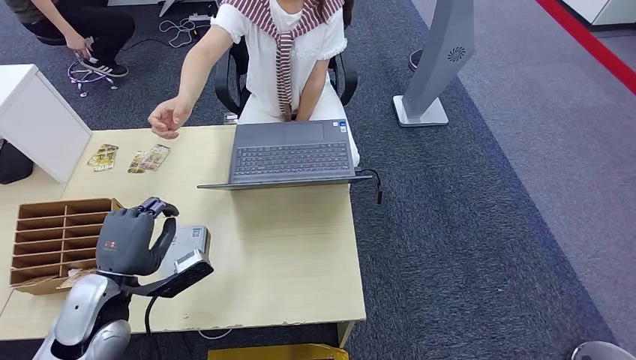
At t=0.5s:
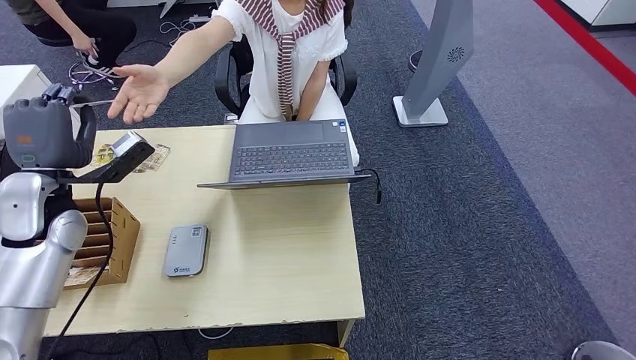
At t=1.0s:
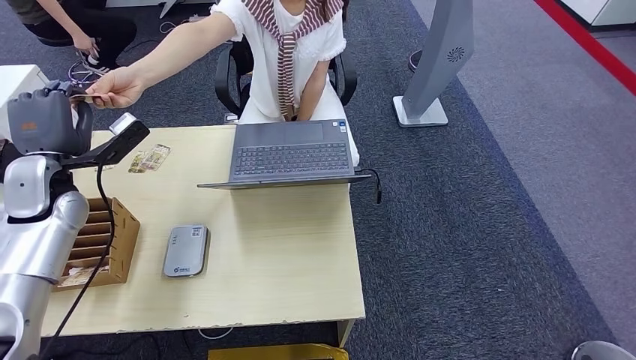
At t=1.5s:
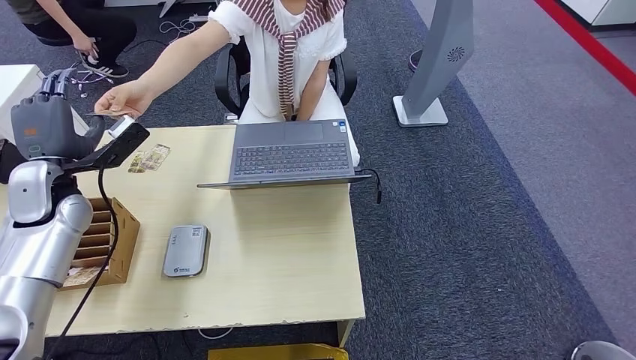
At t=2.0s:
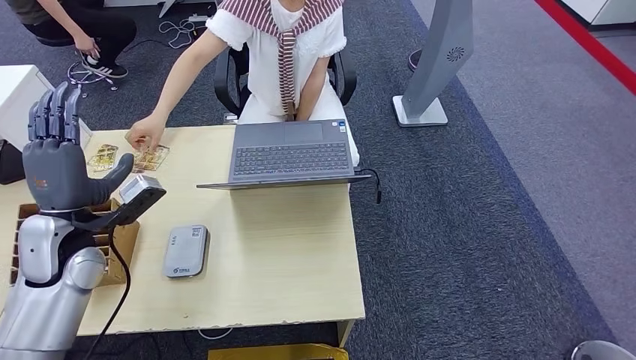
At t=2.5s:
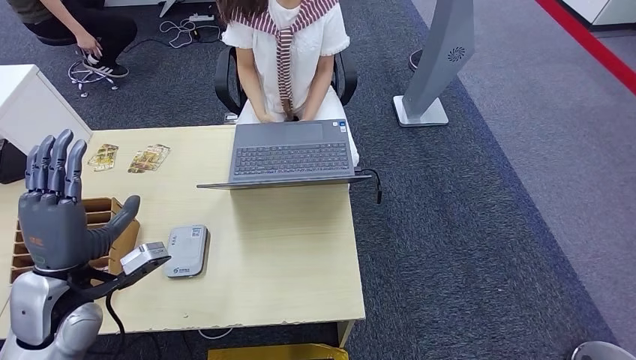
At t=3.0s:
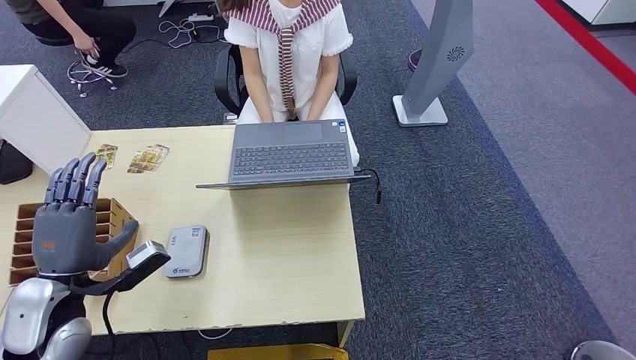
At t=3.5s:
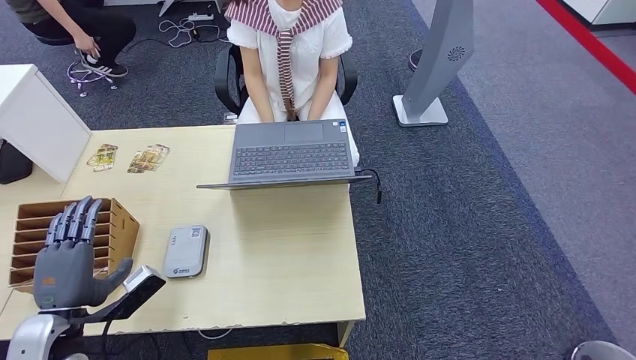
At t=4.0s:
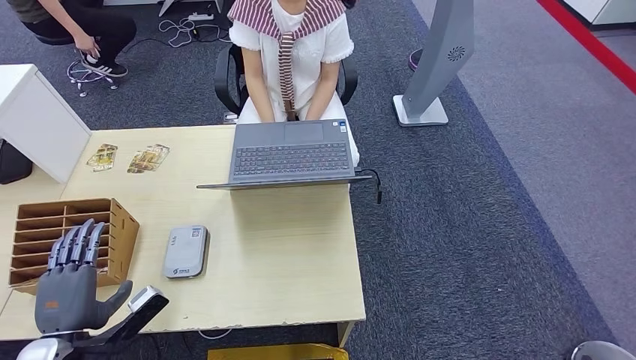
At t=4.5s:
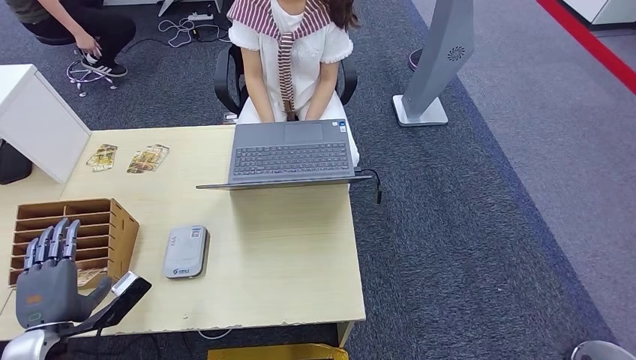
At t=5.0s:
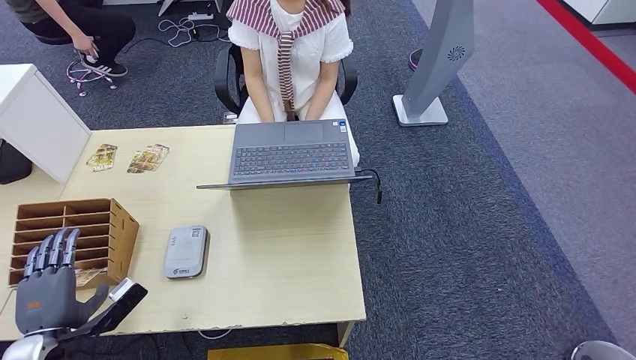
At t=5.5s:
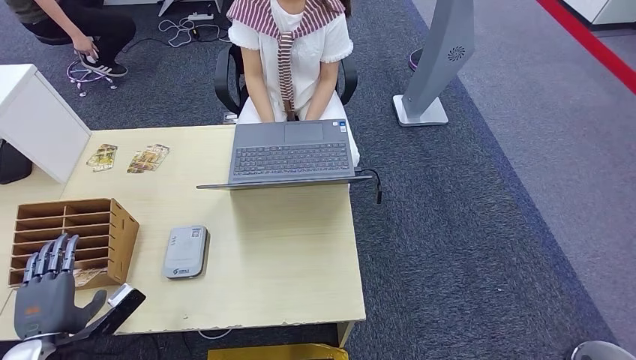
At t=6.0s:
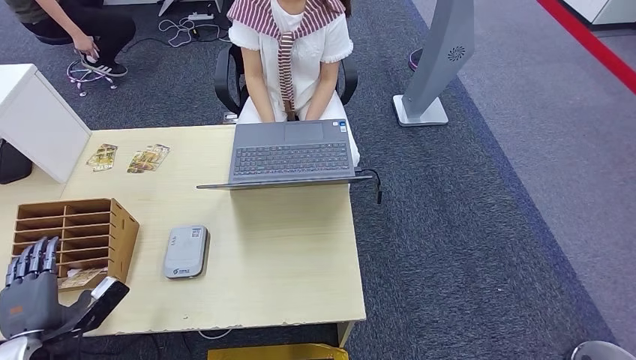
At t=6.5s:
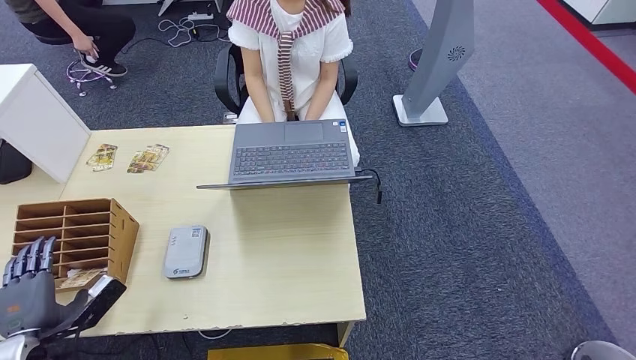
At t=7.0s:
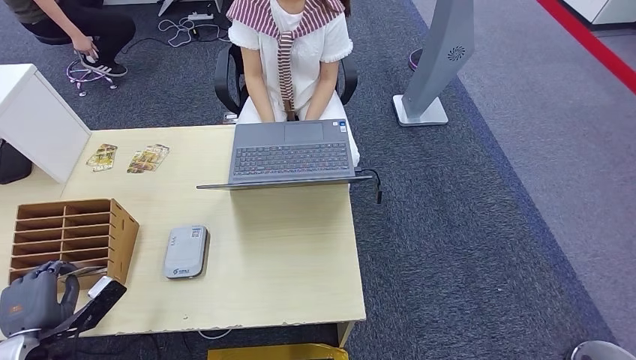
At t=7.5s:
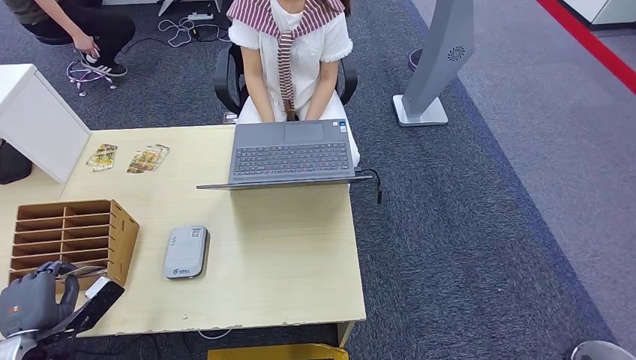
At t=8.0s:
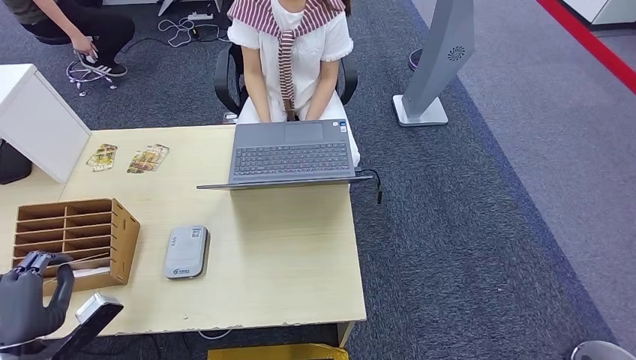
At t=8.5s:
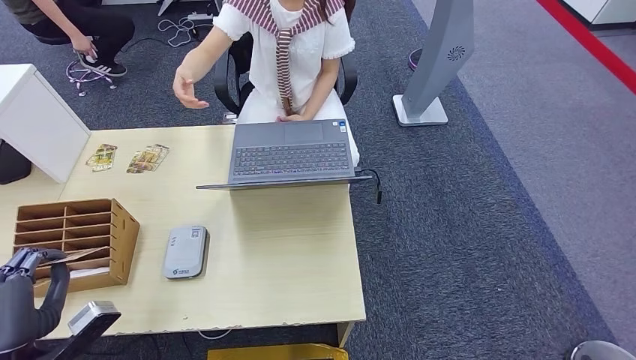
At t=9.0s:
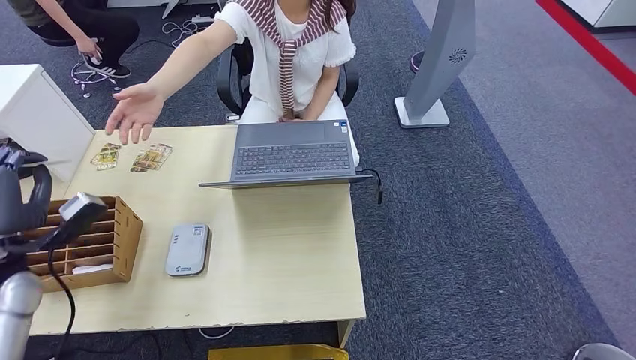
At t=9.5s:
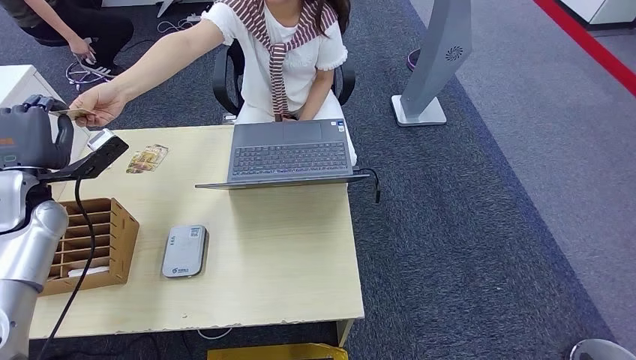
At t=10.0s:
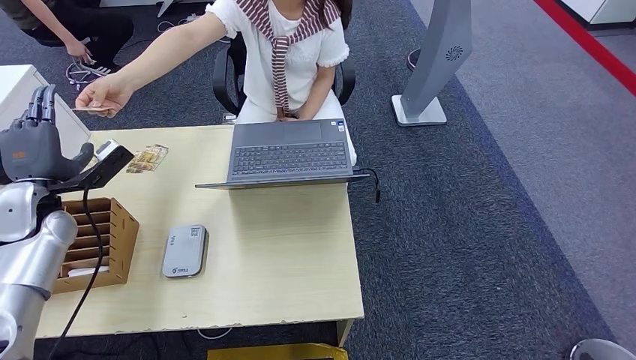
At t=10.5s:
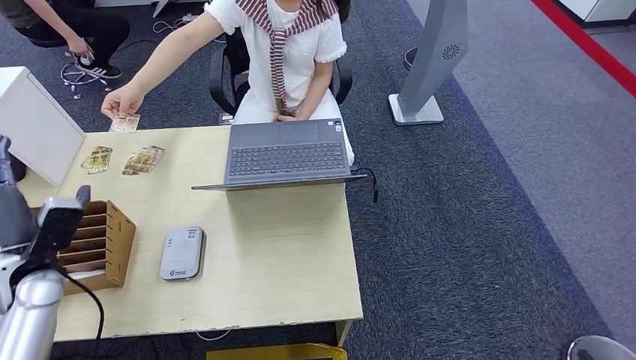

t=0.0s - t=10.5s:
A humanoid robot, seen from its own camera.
Step, t=0.0s - t=1.5s: Hand the ID card to the person.
Step, t=2.0s - t=8.0s: Pick up the room key from the key card box.
Step, t=8.5s - t=10.5s: Hand the room key to the person.
t=0.0s - t=2.0s: The left hand is displaced forward and upward by some 10 cm.
t=2.0s - t=4.0s: The left hand goes roughly 20 cm backward and downward.
t=4.0s - t=6.5s: The left hand moves to the left, about 10 cm.
t=6.5s - t=8.5s: The left hand is displaced upward by about 5 cm.
